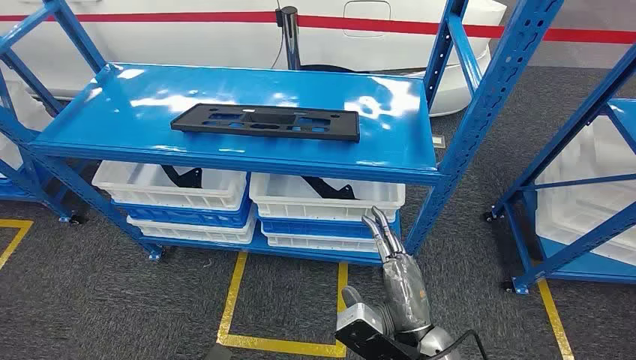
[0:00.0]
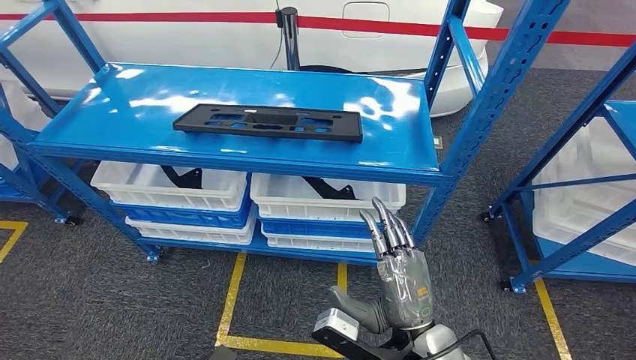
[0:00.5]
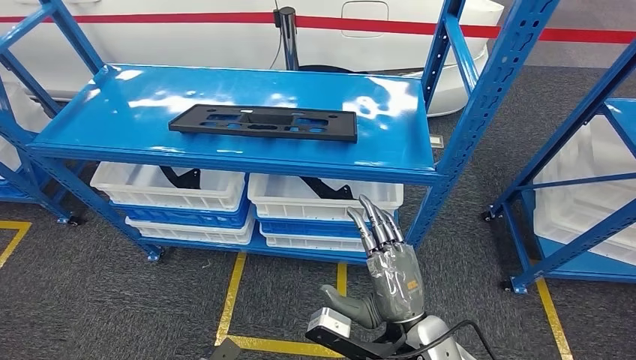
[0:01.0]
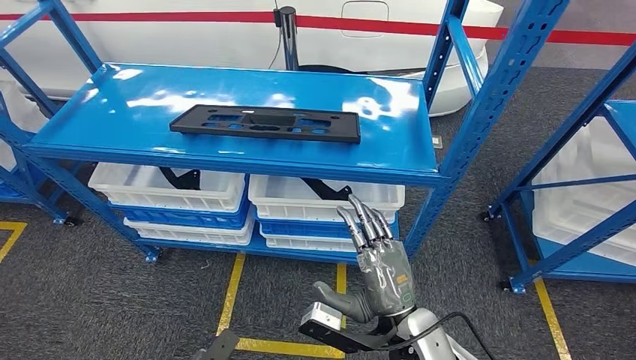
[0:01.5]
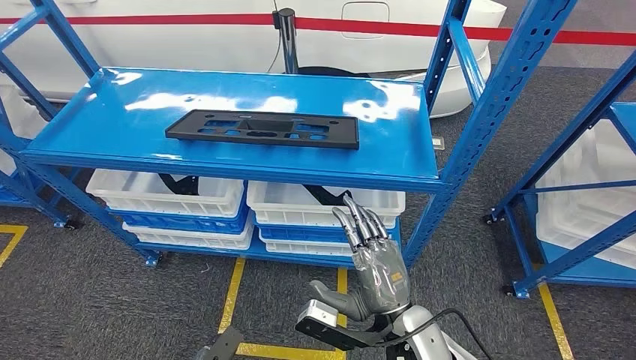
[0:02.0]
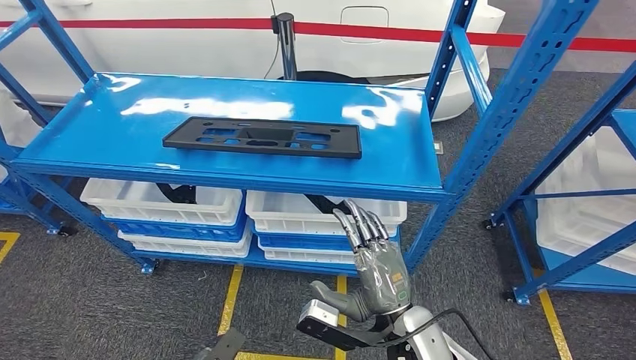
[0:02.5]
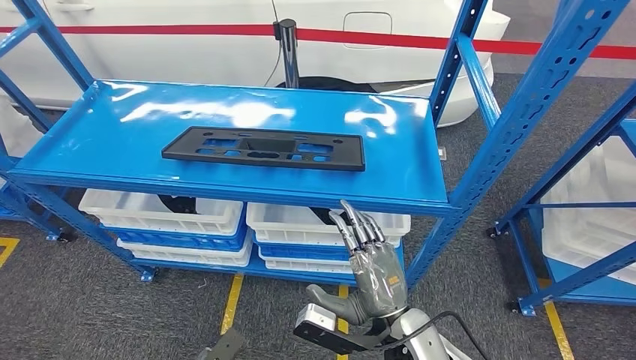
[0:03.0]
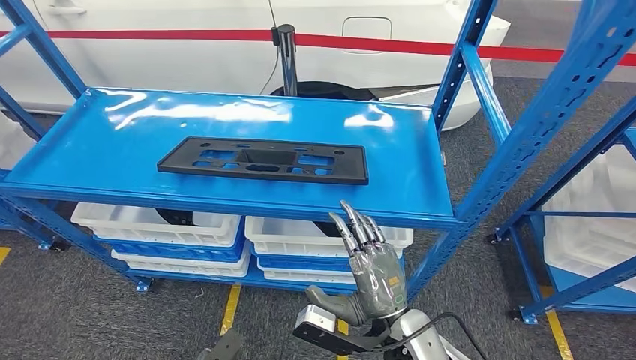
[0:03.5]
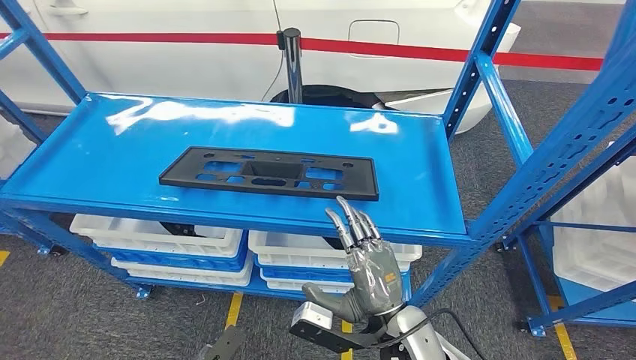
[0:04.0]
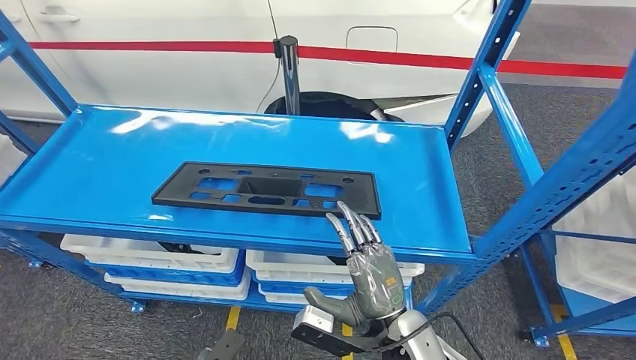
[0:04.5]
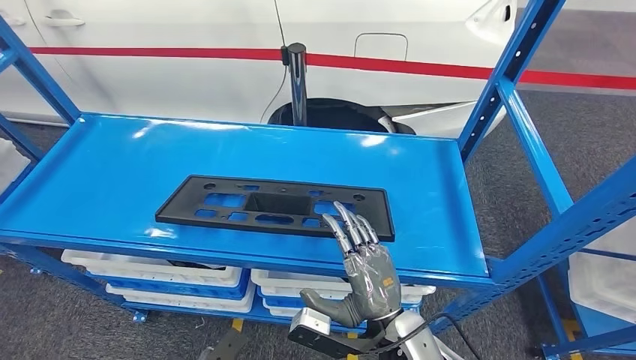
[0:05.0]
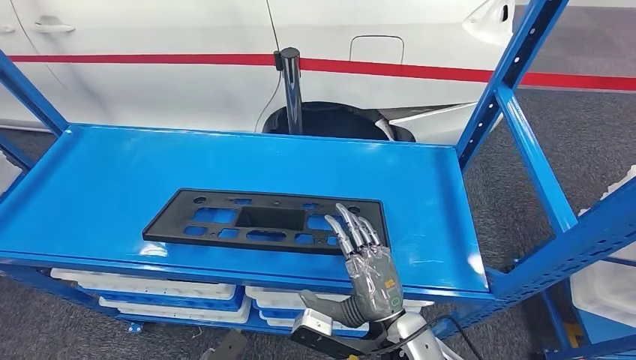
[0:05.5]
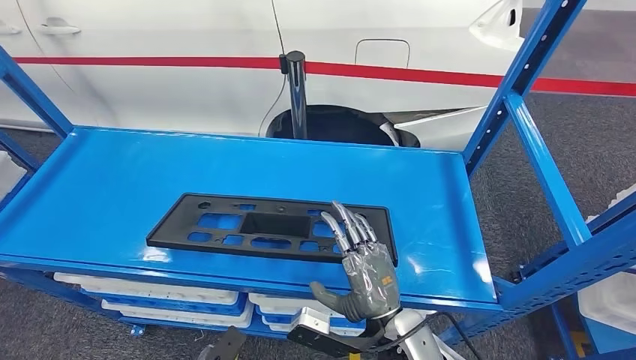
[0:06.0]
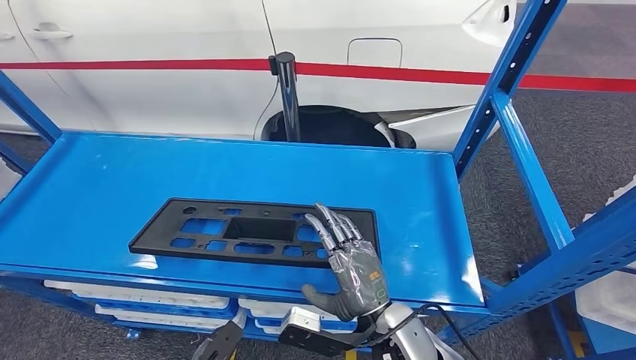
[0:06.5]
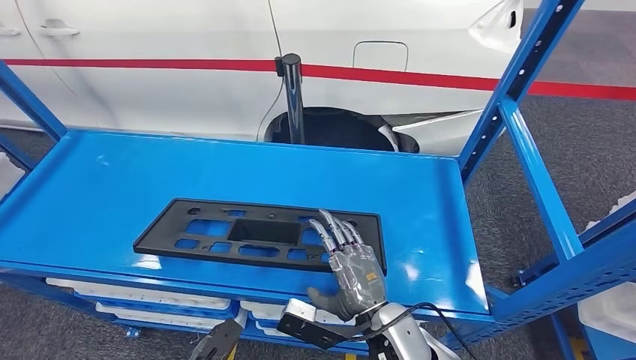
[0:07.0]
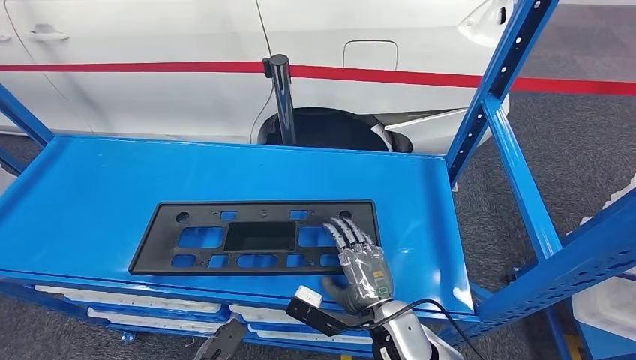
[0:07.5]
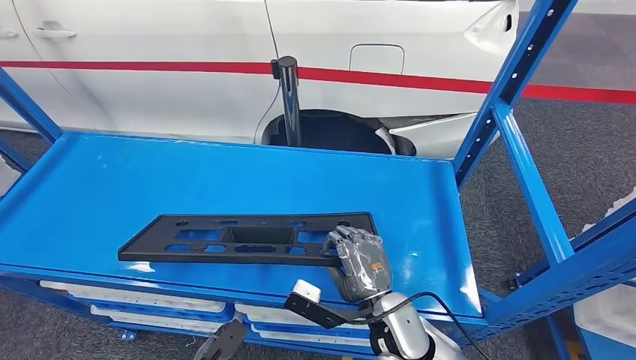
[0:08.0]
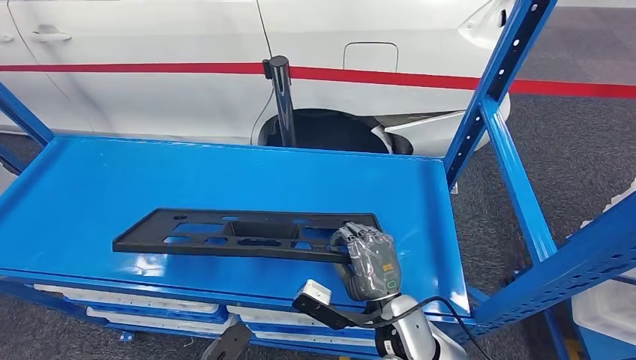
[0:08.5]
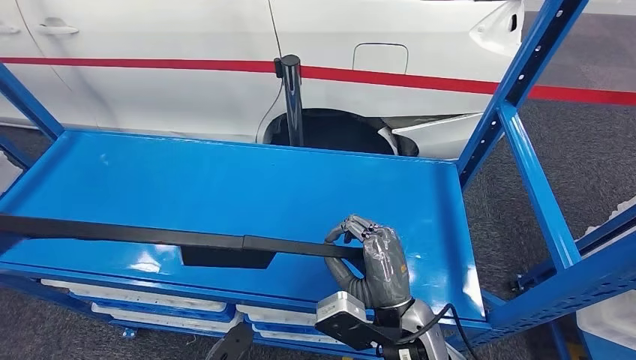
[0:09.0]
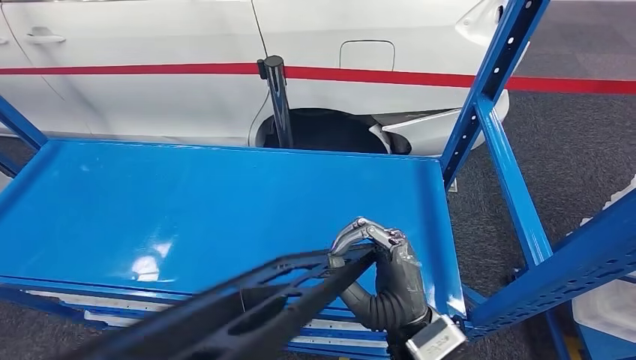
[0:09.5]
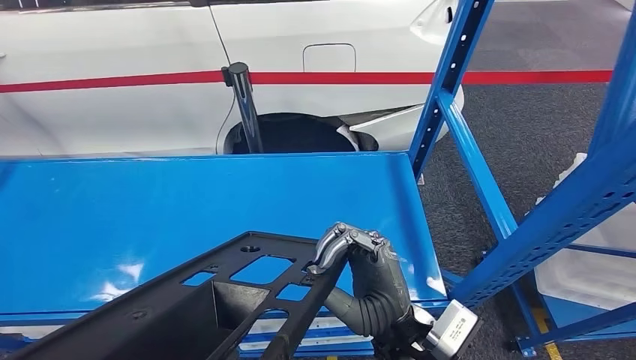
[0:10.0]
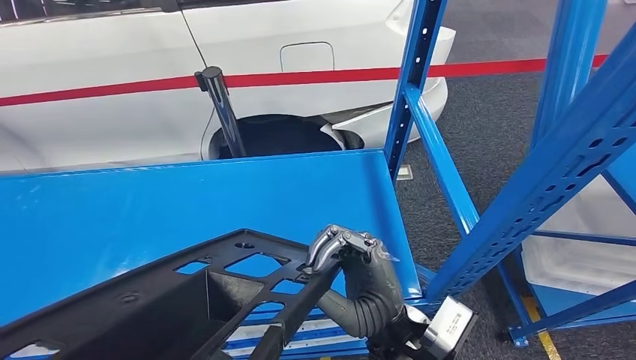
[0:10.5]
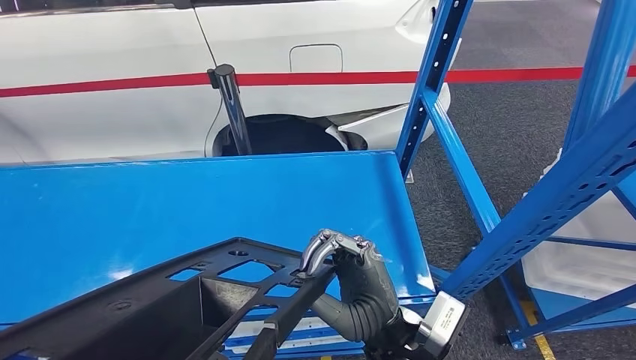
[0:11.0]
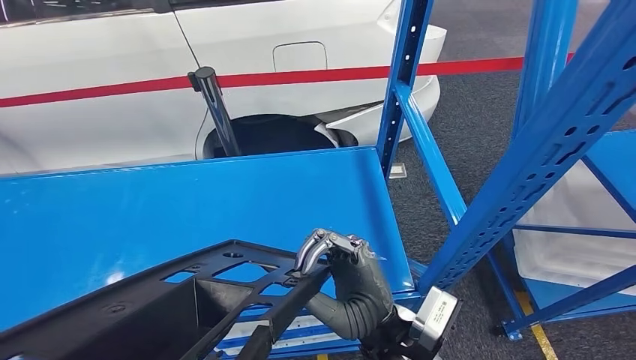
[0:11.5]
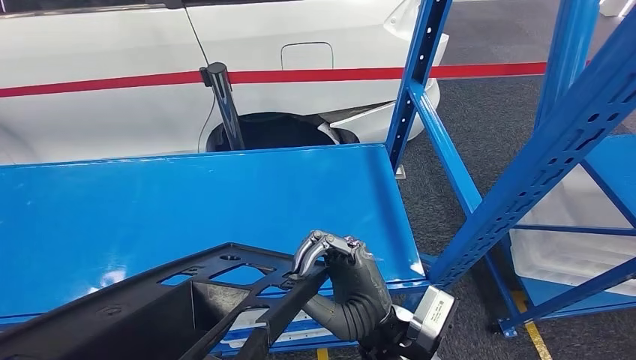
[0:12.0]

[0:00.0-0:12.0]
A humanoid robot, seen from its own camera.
Step, 0:00.0 to 0:09.5: Pick up the large material from the shelf.

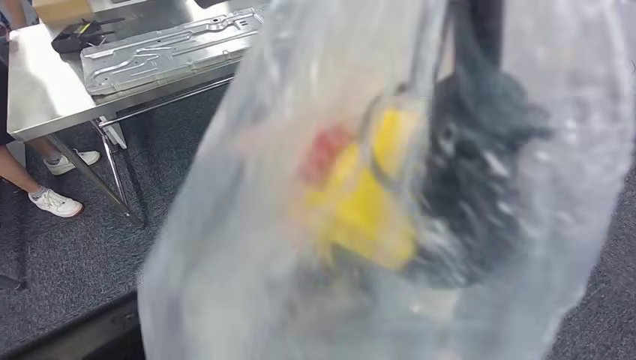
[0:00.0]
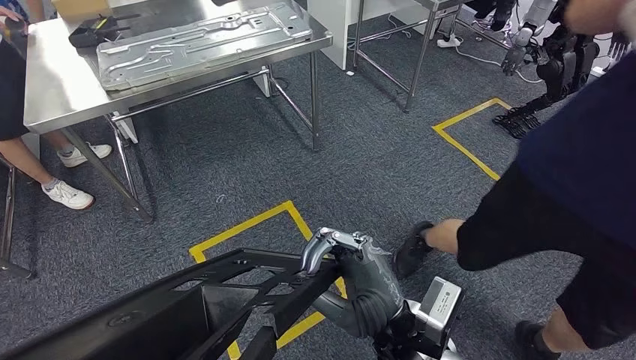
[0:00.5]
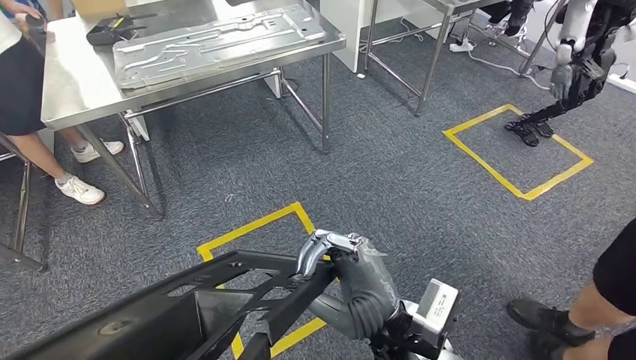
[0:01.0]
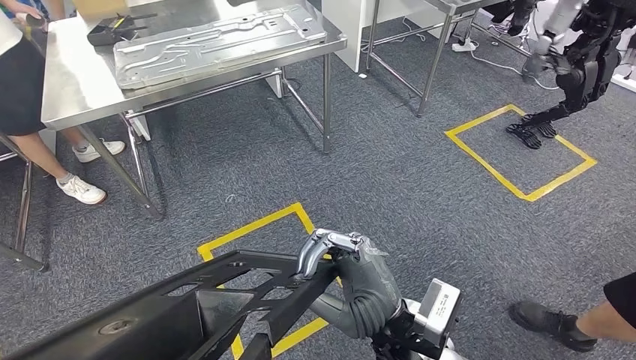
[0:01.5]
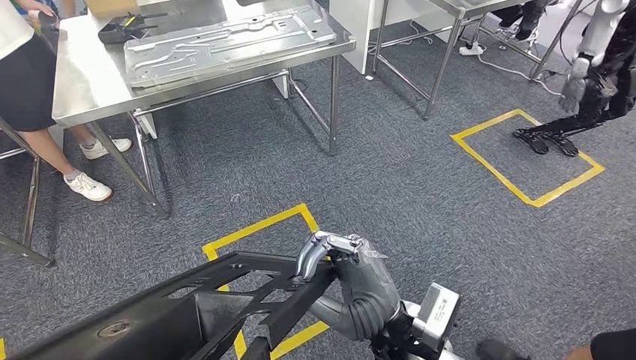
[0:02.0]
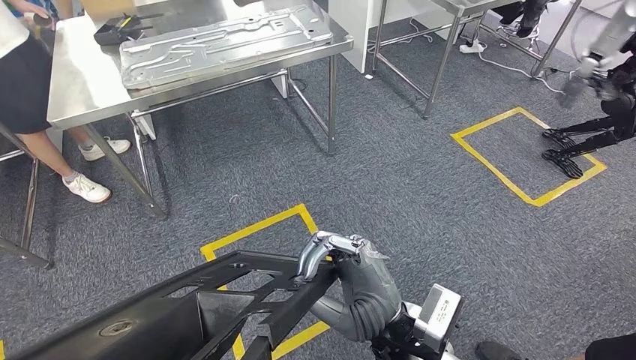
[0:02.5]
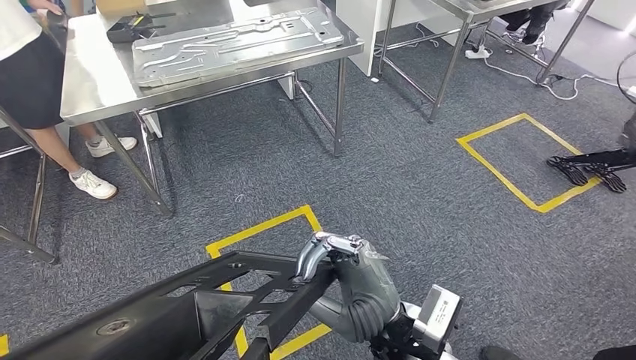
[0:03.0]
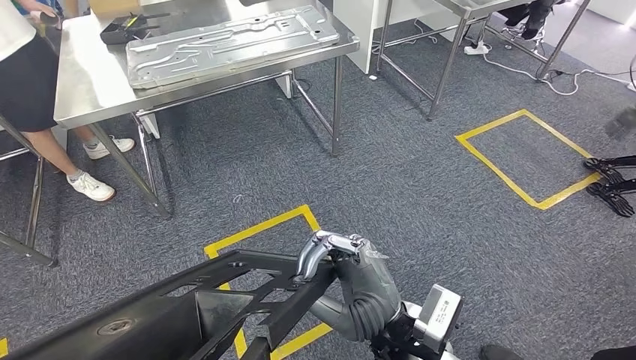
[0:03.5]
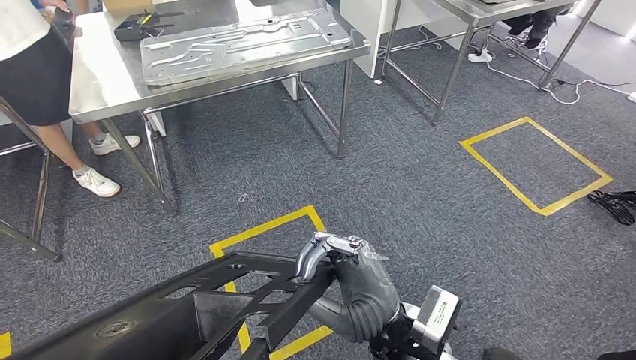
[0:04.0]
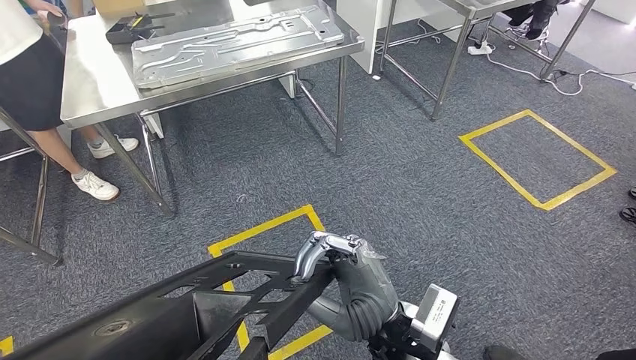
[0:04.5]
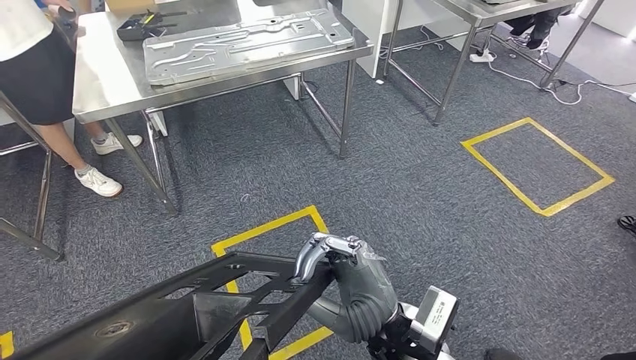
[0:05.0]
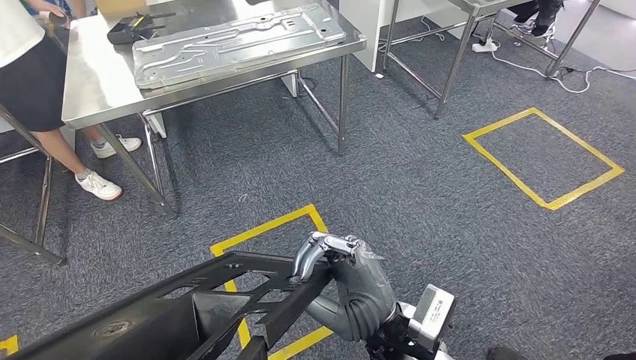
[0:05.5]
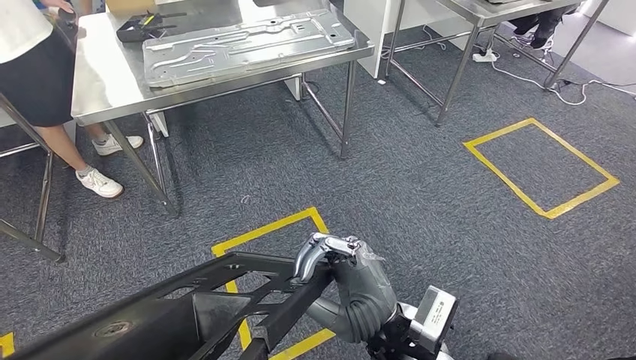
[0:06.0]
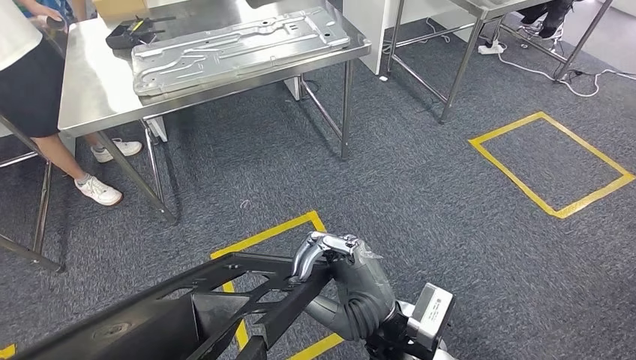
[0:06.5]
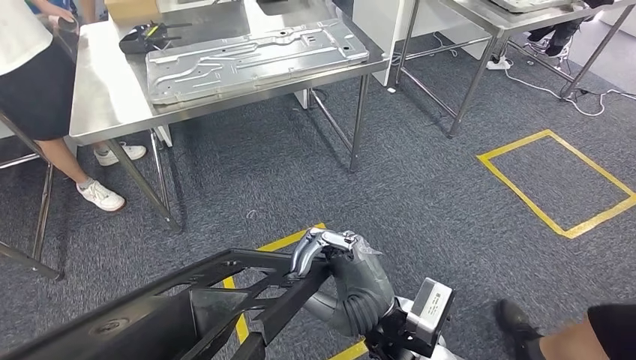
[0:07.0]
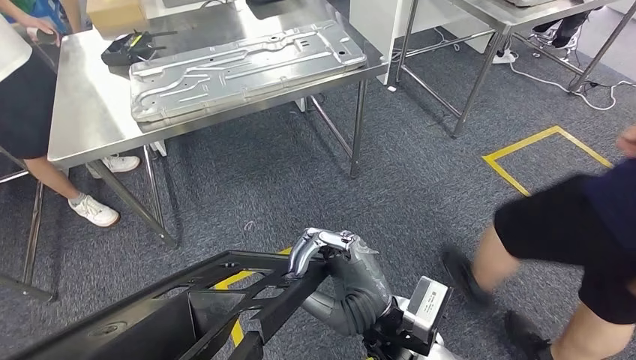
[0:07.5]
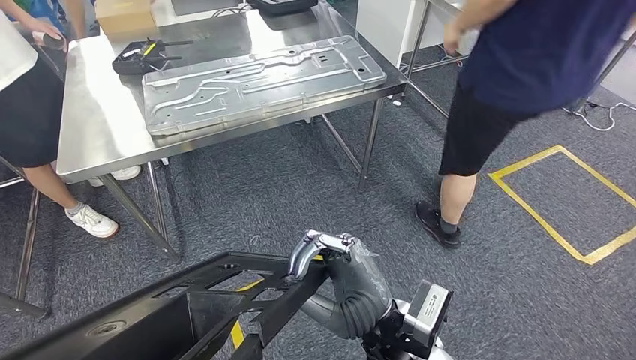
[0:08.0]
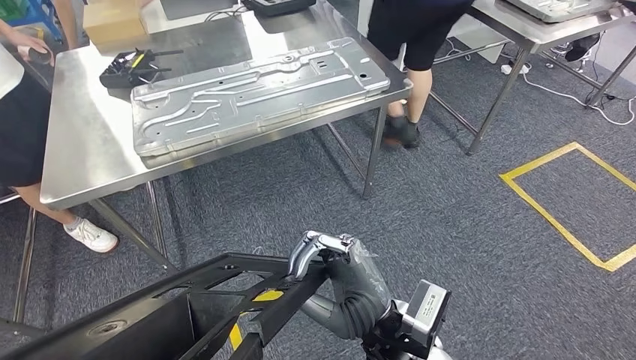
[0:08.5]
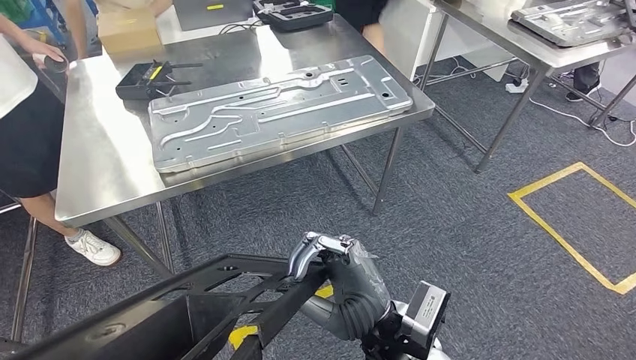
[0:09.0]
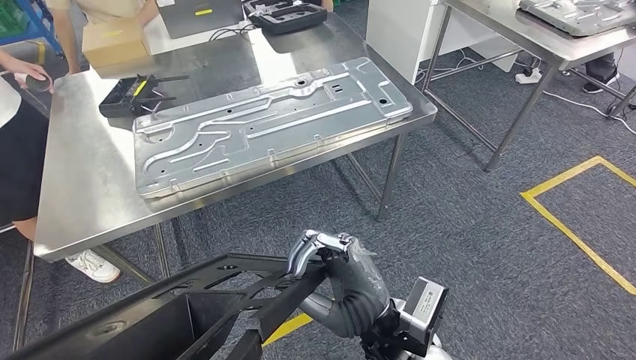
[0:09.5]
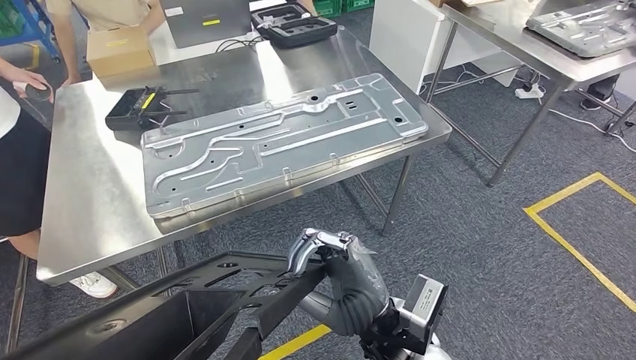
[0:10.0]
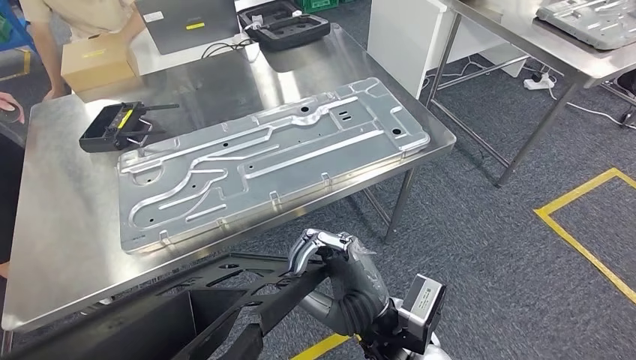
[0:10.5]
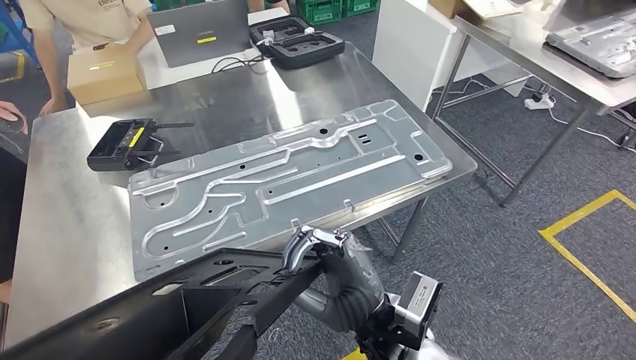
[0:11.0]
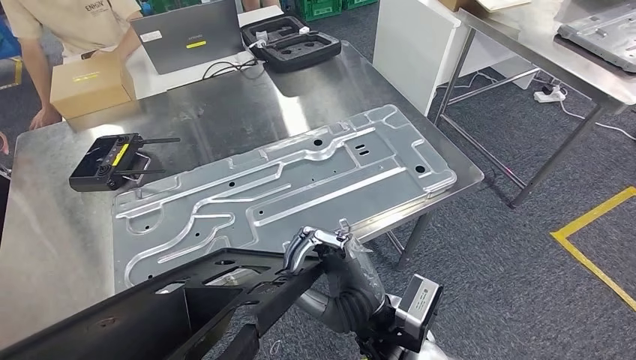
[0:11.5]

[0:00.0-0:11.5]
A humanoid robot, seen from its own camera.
Step, 0:00.0 to 0:10.5: Move the large material to the workbench.
0:04.0 to 0:06.0: The two hands keep their place.
